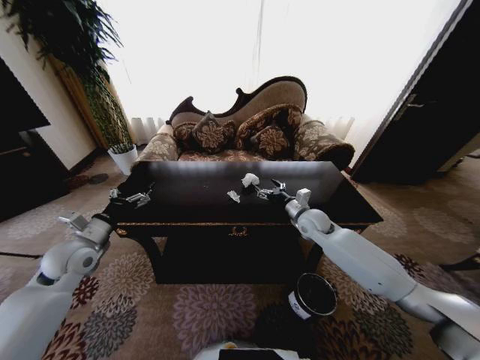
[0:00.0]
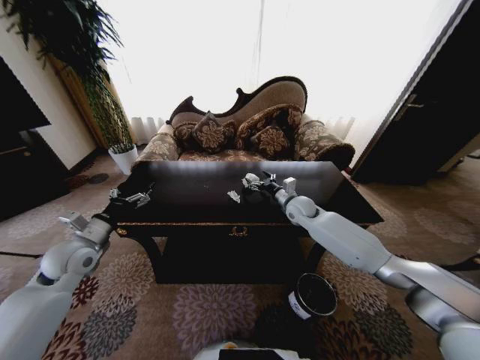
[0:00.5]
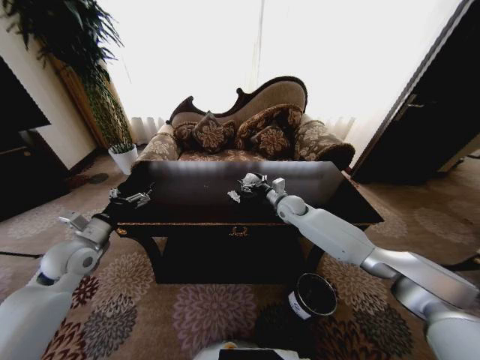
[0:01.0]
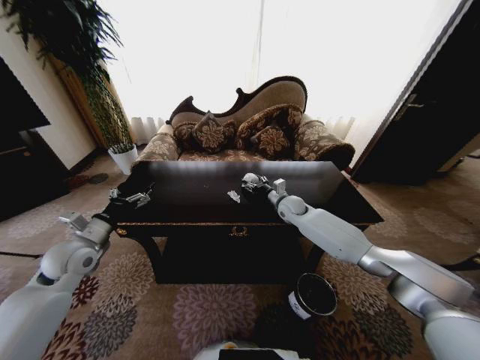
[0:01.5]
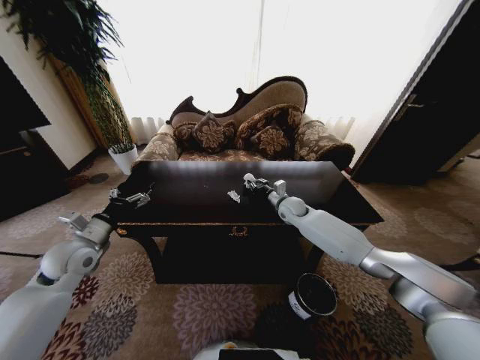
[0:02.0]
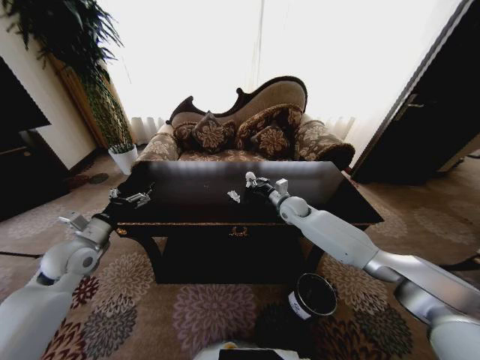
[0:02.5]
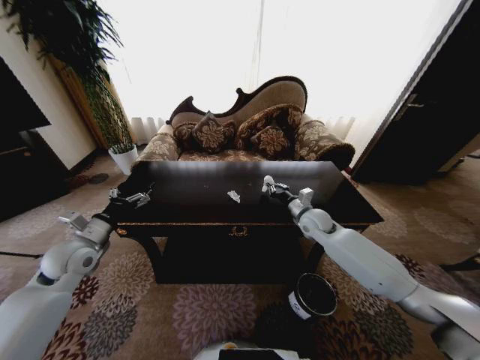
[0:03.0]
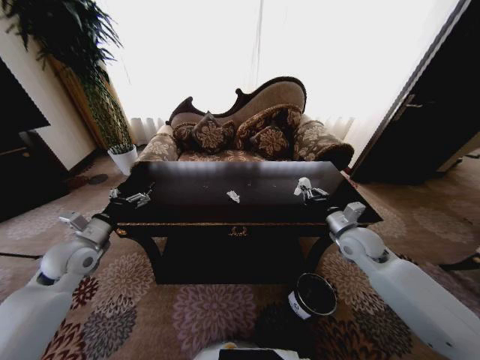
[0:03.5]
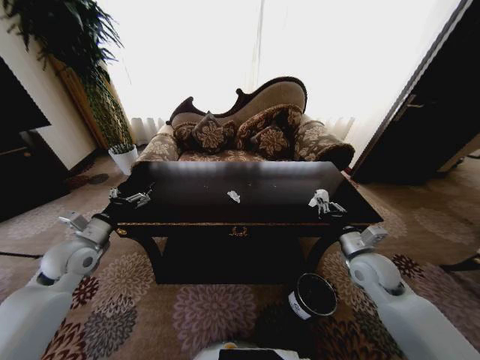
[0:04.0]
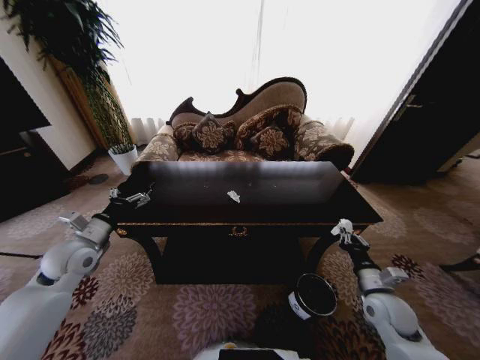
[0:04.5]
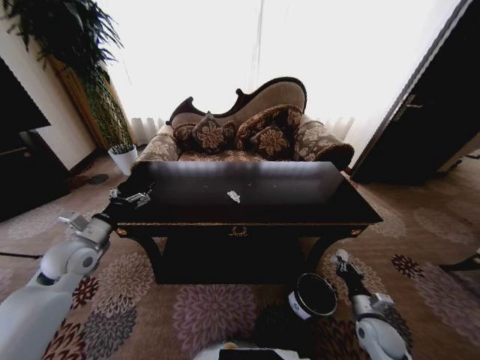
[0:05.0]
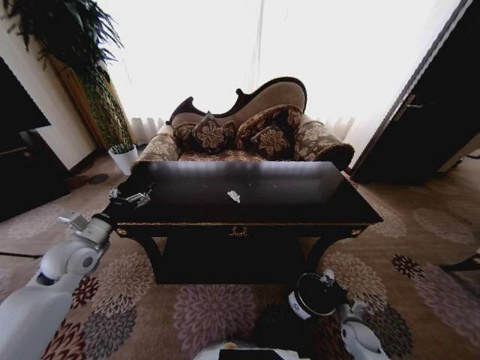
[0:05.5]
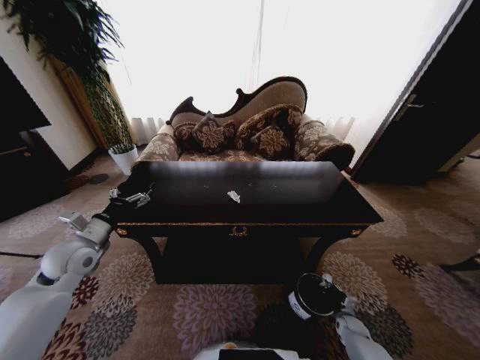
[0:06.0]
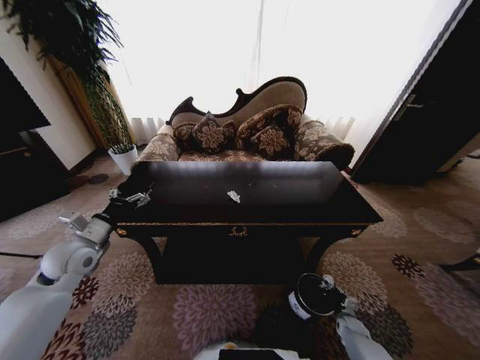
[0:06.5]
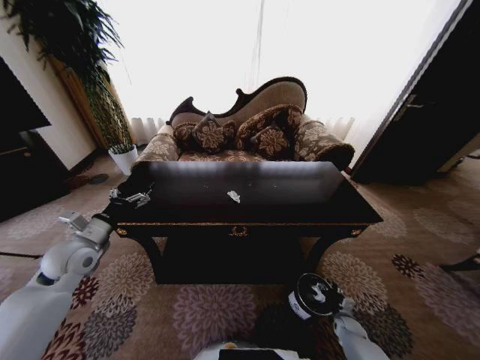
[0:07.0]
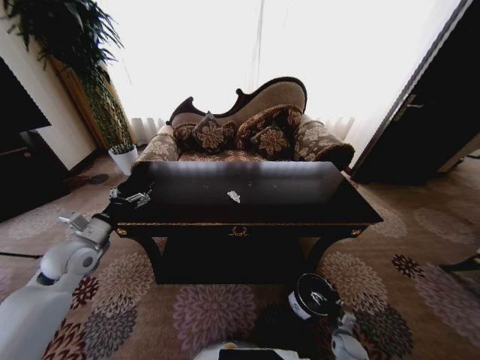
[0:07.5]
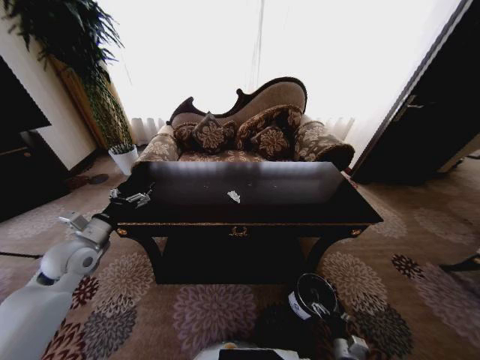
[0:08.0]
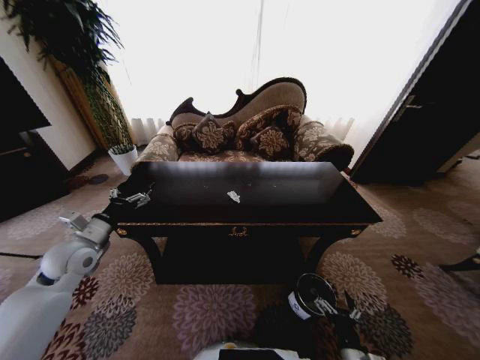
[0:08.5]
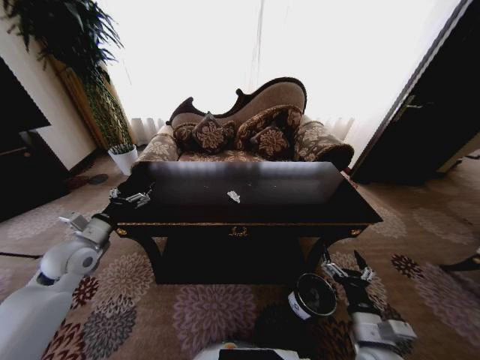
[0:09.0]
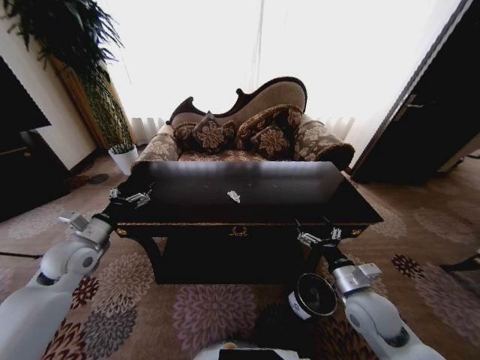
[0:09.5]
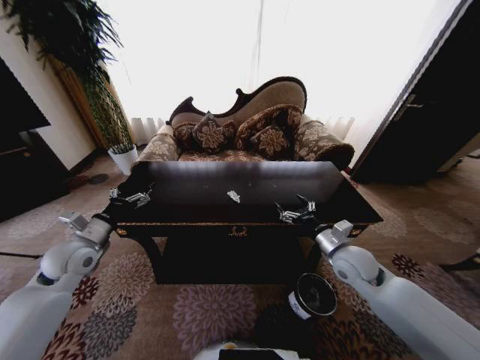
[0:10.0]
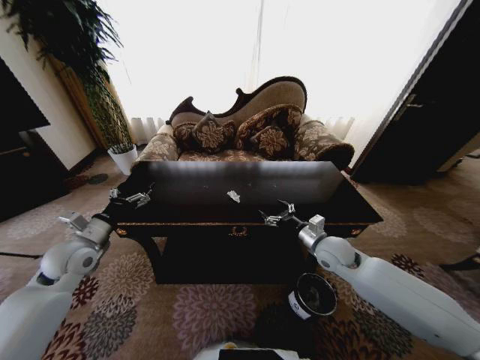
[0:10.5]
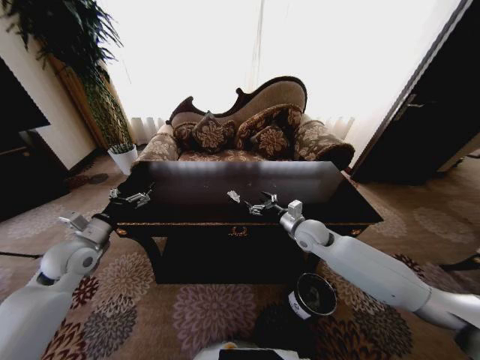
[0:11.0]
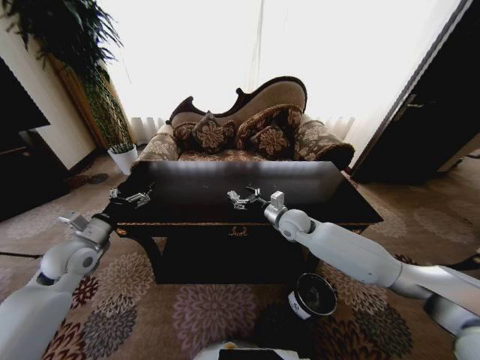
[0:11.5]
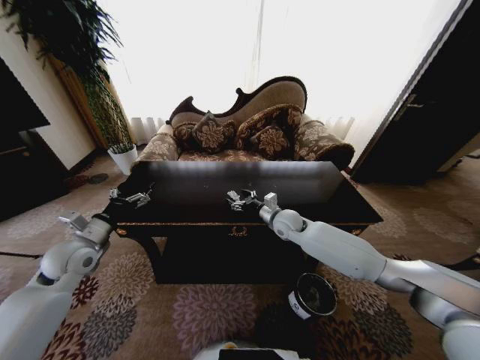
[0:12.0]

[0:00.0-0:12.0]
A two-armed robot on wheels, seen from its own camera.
Task of the whole recording: Move to the front of the table and place the trash on the table into the trash bin.
0:00.0 to 0:02.0: The right gripper goes roughly 10 cm forward, and closes up.
0:02.0 to 0:04.0: The right gripper moves backward and to the right, roughly 30 cm.
0:04.0 to 0:06.0: The right gripper is displaced downward by about 35 cm.
0:06.0 to 0:08.0: The right gripper goes about 15 cm backward, to the left and upward, and opens its fingers.
0:08.0 to 0:10.0: The right gripper heads upward and forward, covering about 40 cm.
0:10.0 to 0:12.0: The right gripper shifts about 20 cm forward and to the left.

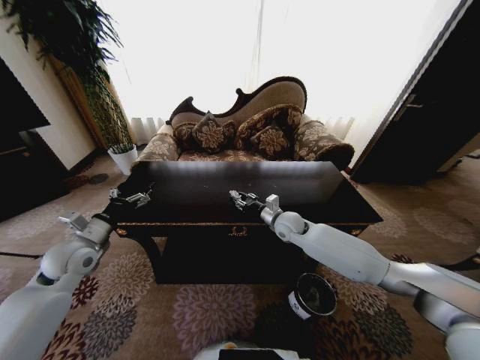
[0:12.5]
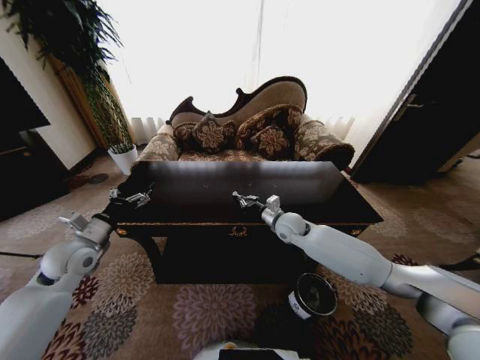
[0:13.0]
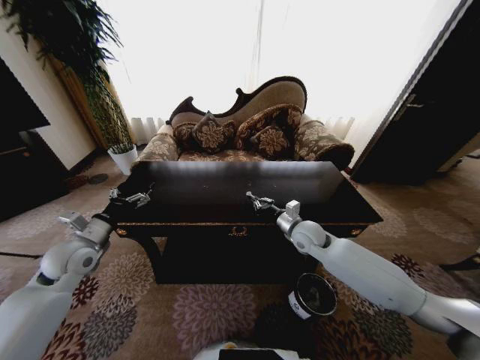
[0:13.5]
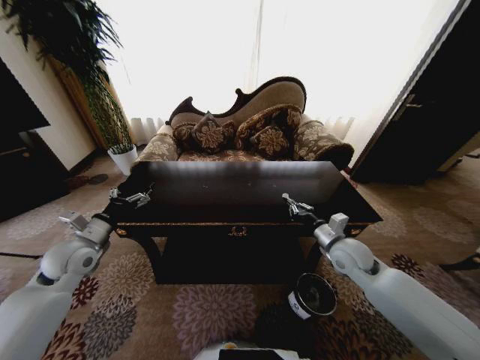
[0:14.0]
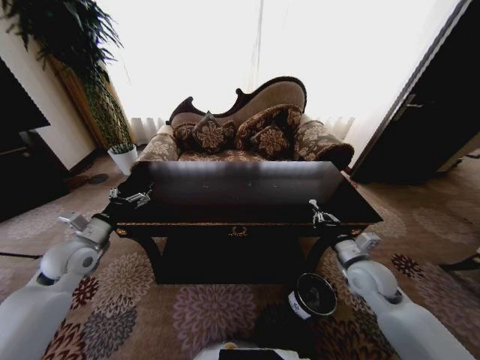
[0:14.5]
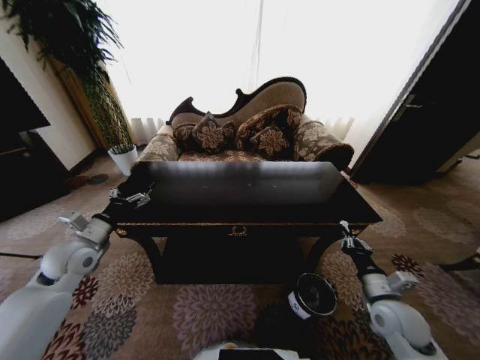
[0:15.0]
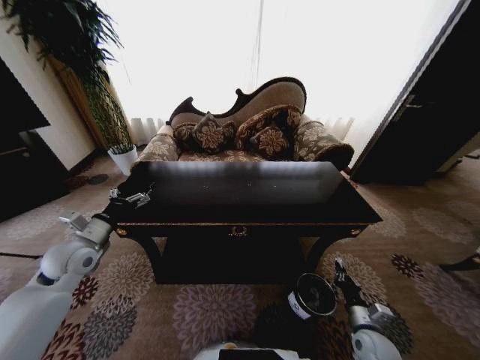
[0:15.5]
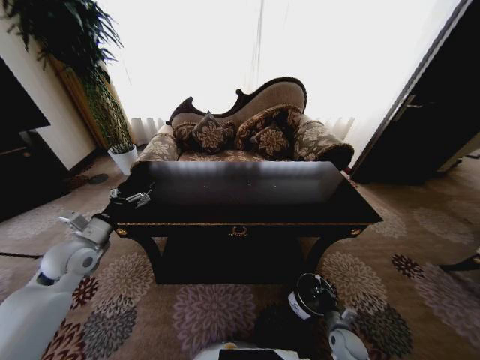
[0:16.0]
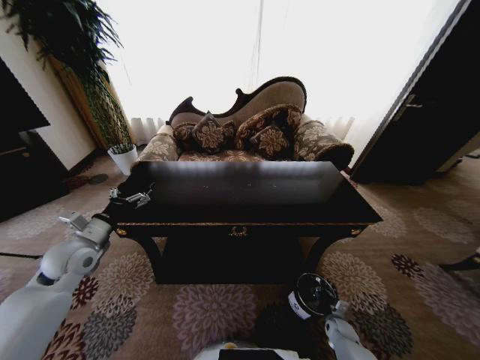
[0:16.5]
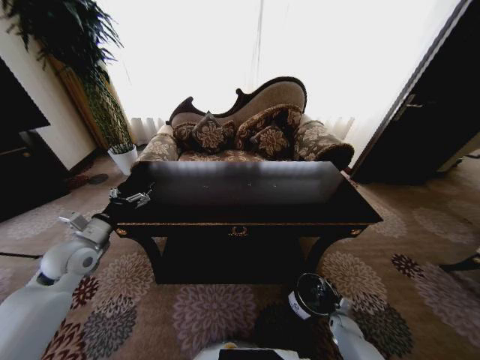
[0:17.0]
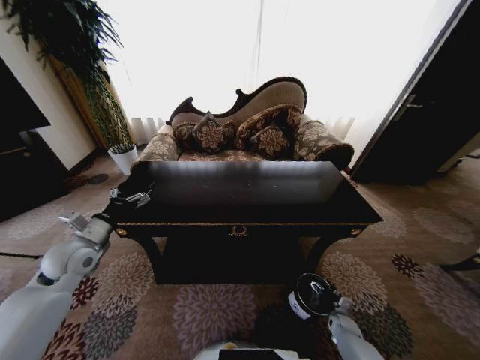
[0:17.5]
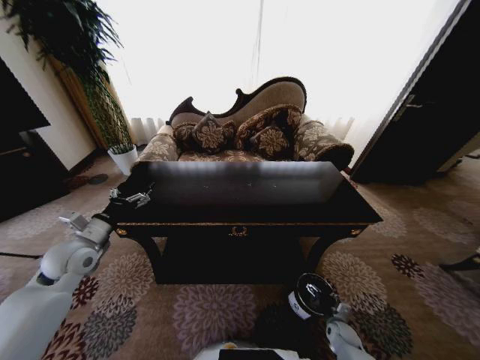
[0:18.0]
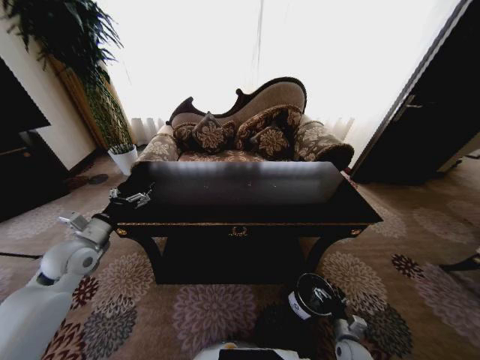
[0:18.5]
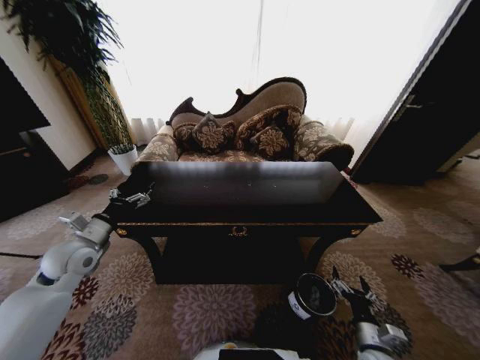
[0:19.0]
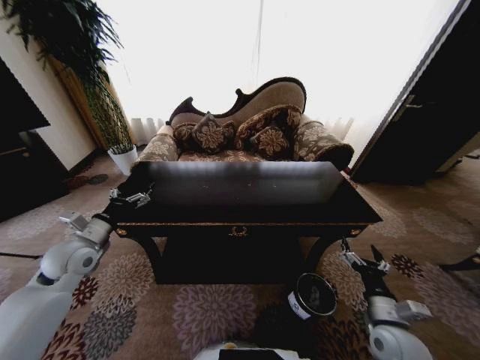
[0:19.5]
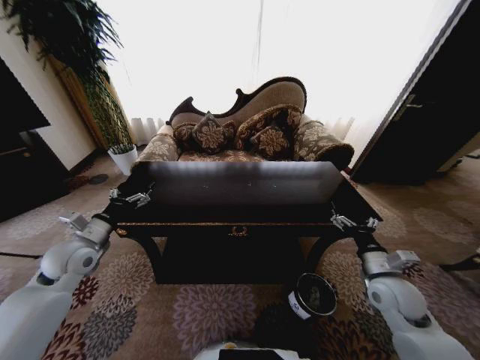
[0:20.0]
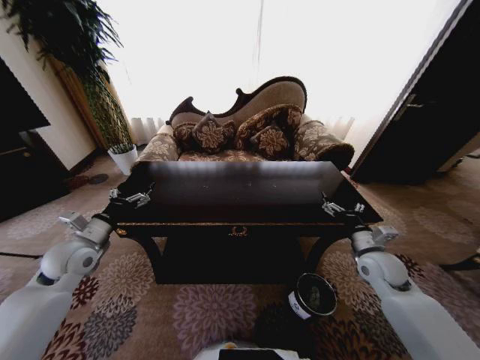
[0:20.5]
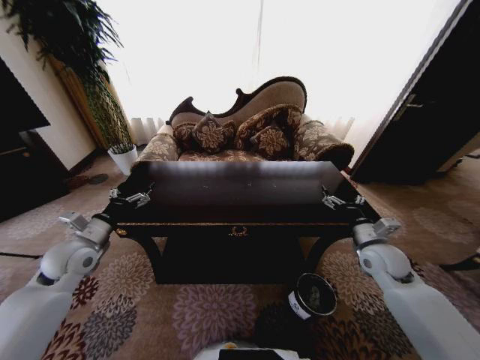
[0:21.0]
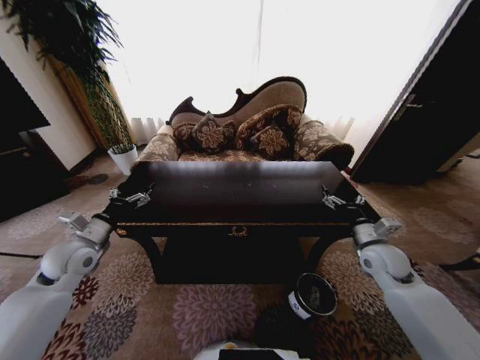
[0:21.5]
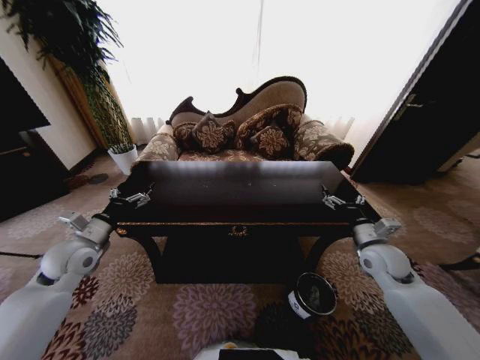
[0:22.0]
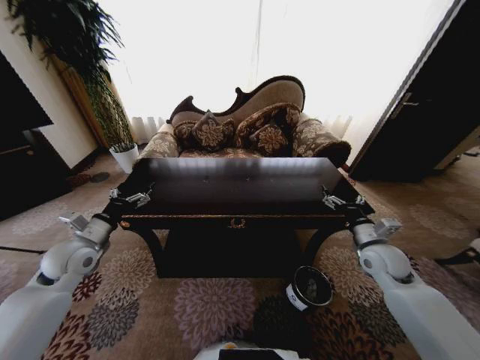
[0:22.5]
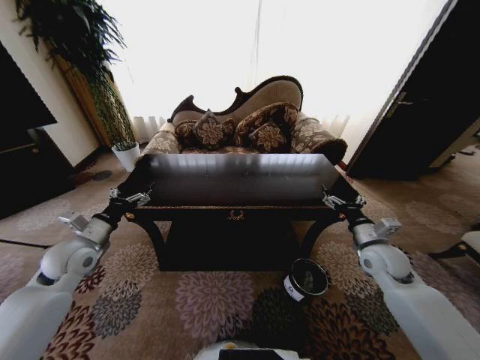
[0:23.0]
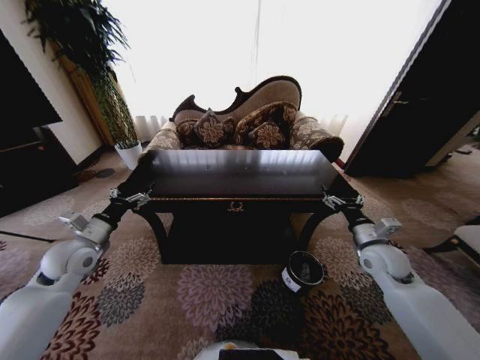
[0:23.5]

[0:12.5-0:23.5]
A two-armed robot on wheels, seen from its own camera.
Task of the whole recording: Move to the front of the table and place the trash on the table into the trash bin.
0:12.5 to 0:14.5: The right gripper is displaced backward and to the right by approximately 25 cm, and closes its fingers.
0:14.5 to 0:16.0: The right gripper heads downward, covering about 30 cm.
0:16.0 to 0:18.0: The right gripper opens up.
0:18.0 to 0:20.0: The right gripper is displaced upward by about 35 cm.
0:20.0 to 0:21.5: The right gripper moves forward, roughly 10 cm.
